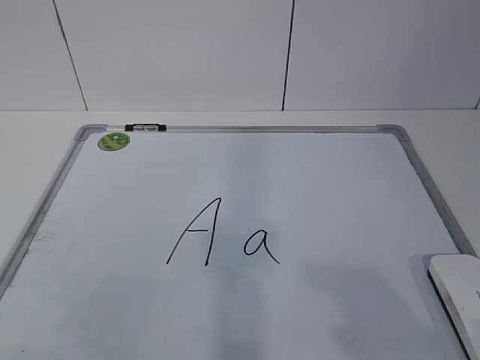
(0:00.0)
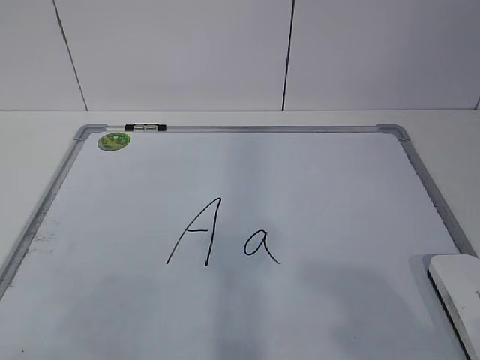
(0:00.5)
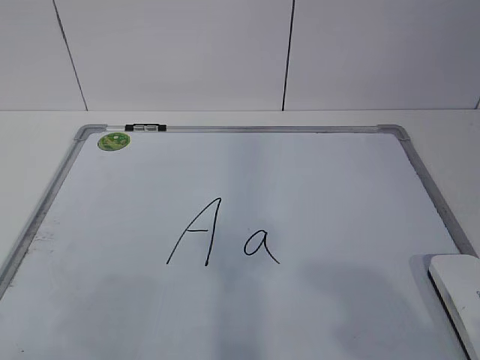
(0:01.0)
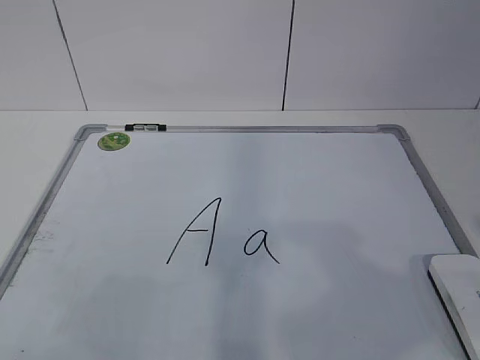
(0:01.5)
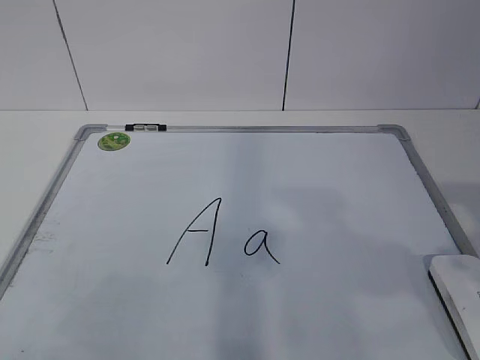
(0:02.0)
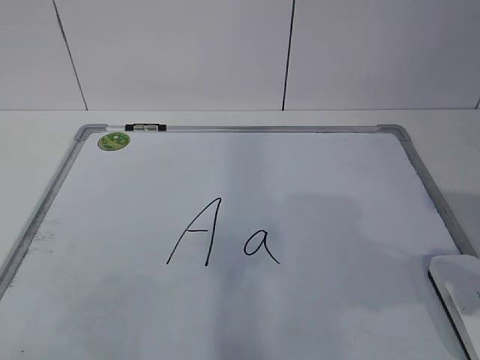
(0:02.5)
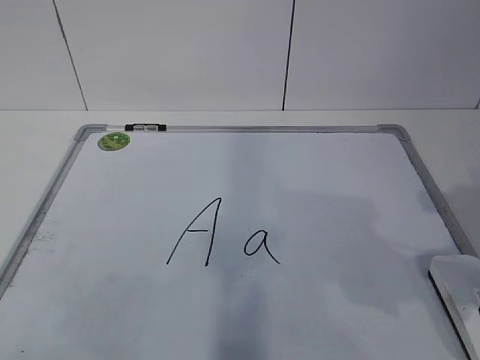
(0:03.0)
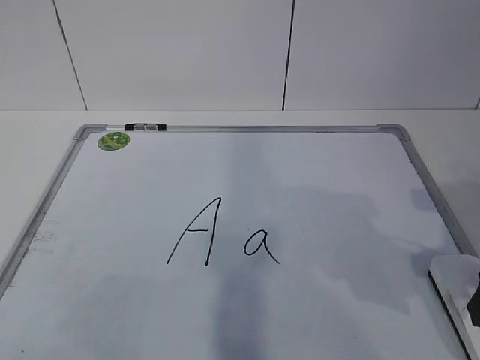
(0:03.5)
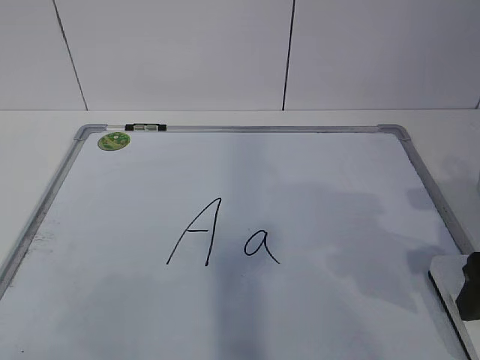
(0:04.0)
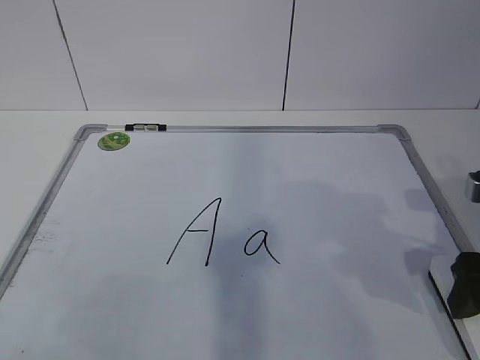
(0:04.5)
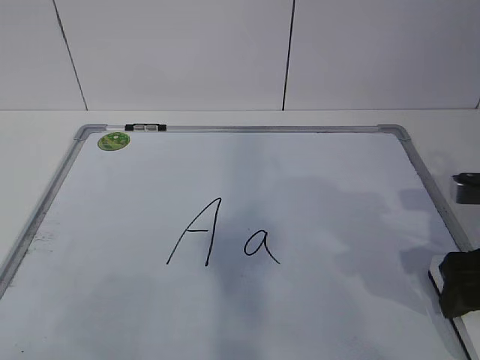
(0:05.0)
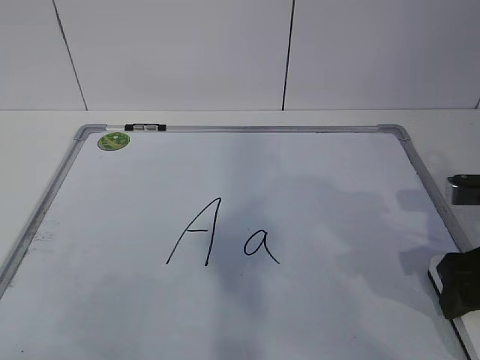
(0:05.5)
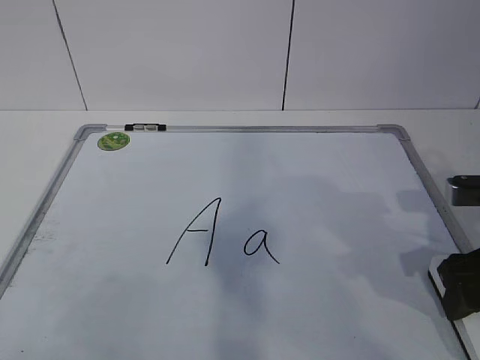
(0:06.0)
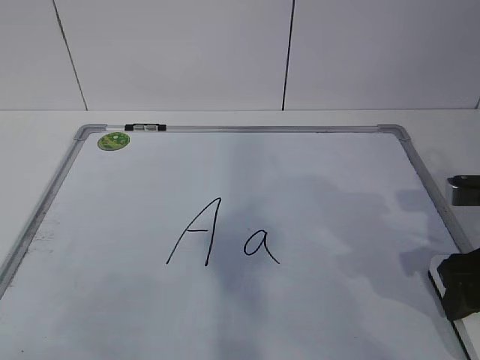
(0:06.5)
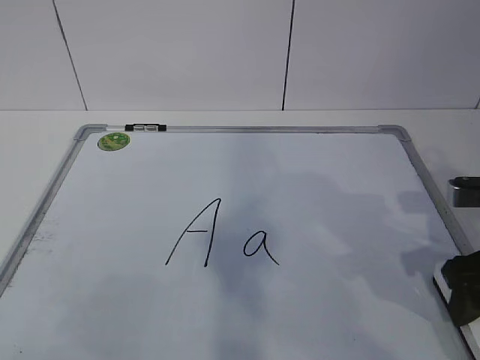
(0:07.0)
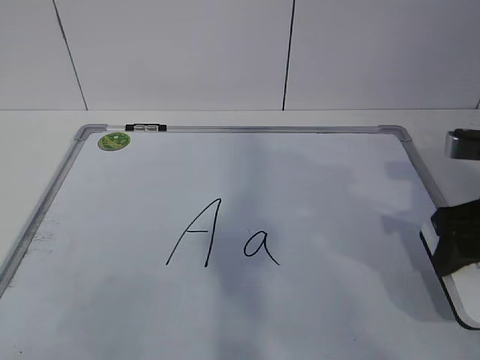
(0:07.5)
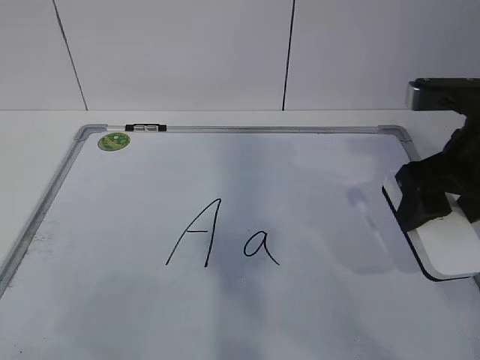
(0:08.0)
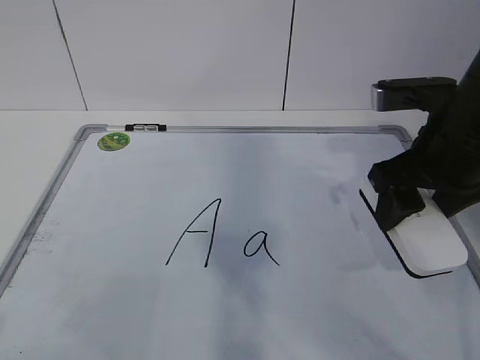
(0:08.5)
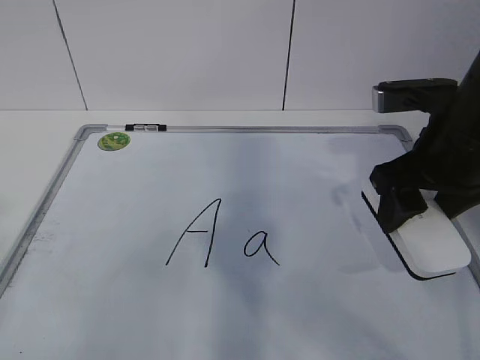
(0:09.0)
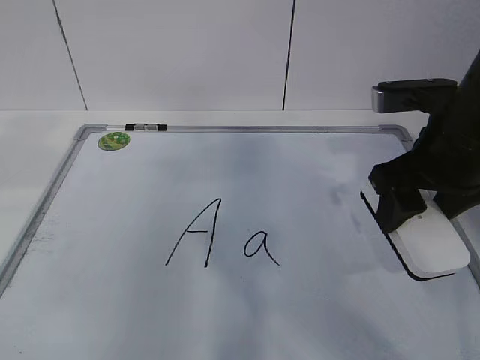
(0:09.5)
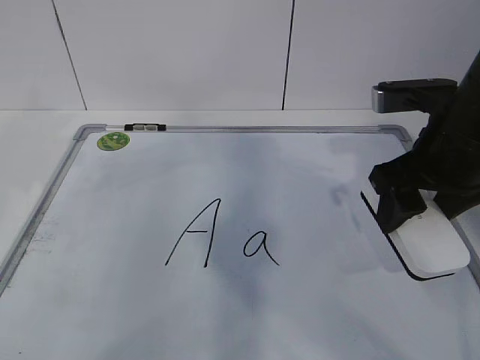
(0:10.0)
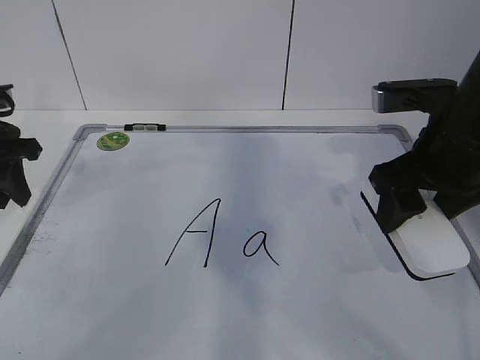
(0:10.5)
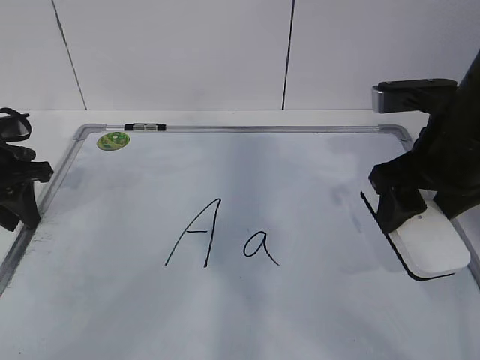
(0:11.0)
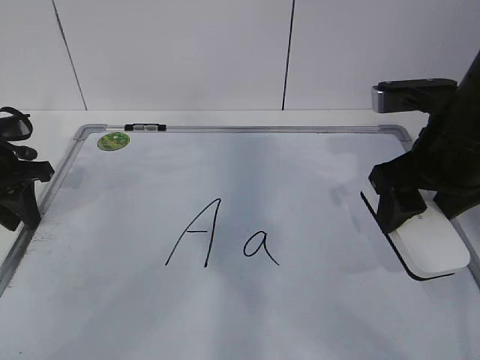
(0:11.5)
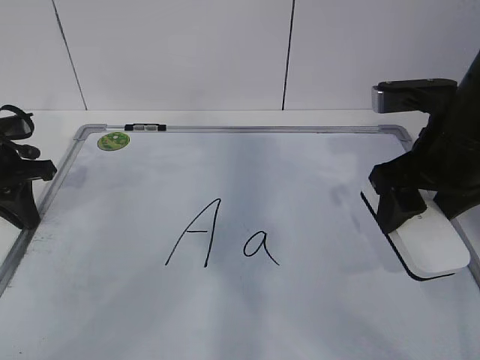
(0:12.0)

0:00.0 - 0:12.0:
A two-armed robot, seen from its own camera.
Task of the whole recording: pick up the eraser on the blackboard and erase the letter "a".
Step, 0:06.0 - 0:09.5: Hold the drawing board steady with your left hand.
0:02.0 - 0:04.0: The right gripper heads forward and downward, covering some 15 cm, and opens.
0:04.0 - 0:06.0: The right gripper closes its fingers.
0:06.0 - 0:08.0: The right gripper heads upward, covering about 10 cm.
0:10.0 - 0:12.0: The left gripper moves downward and forward, about 15 cm, and closes up.

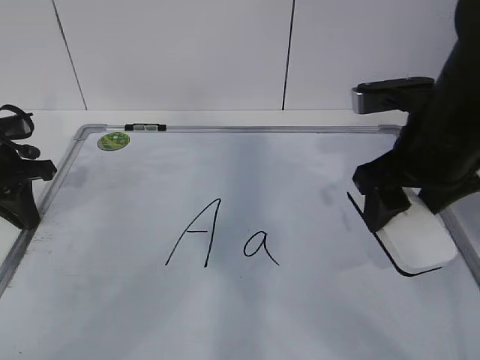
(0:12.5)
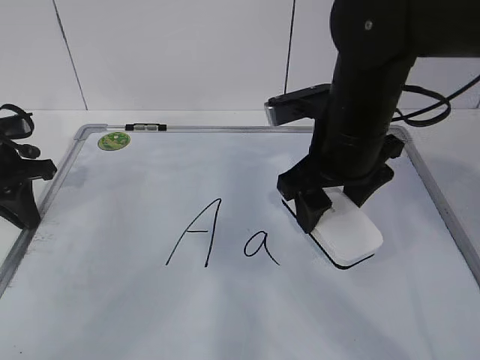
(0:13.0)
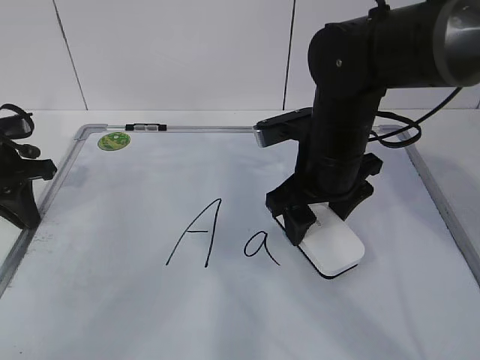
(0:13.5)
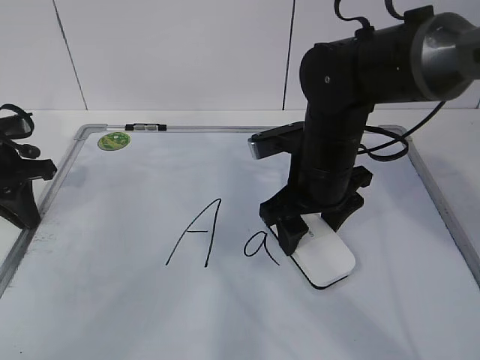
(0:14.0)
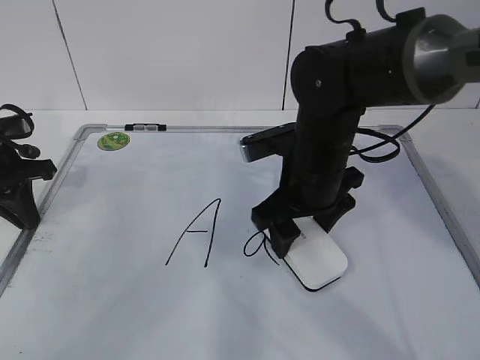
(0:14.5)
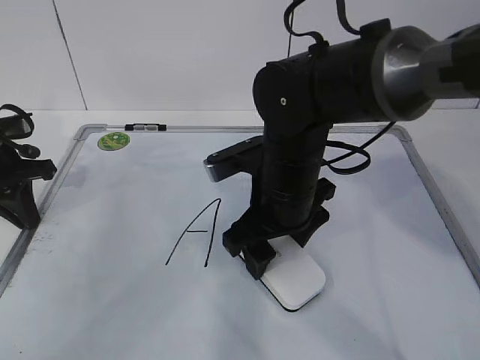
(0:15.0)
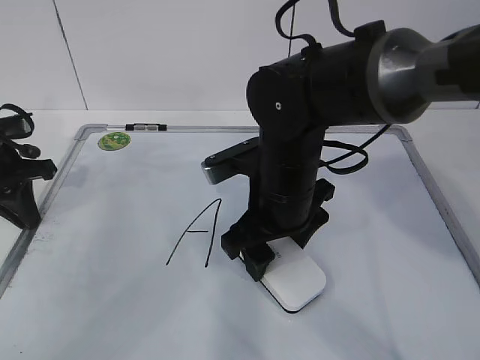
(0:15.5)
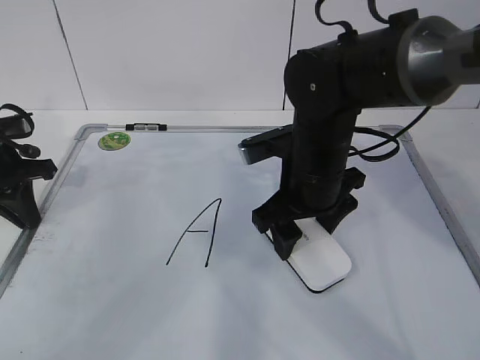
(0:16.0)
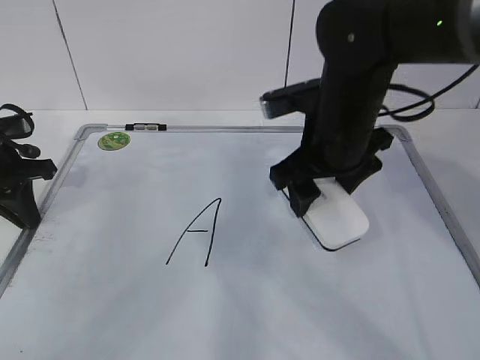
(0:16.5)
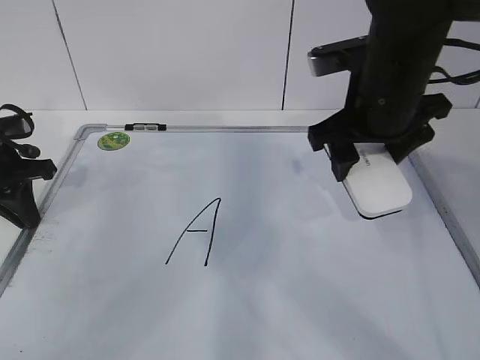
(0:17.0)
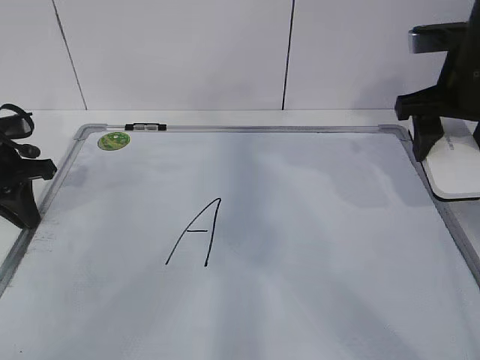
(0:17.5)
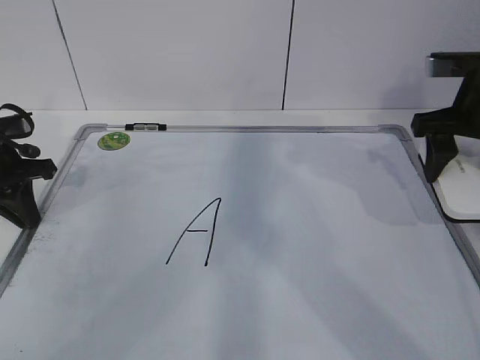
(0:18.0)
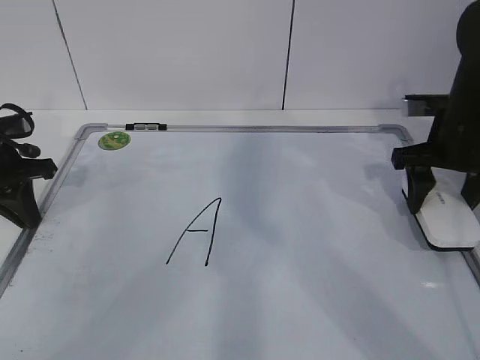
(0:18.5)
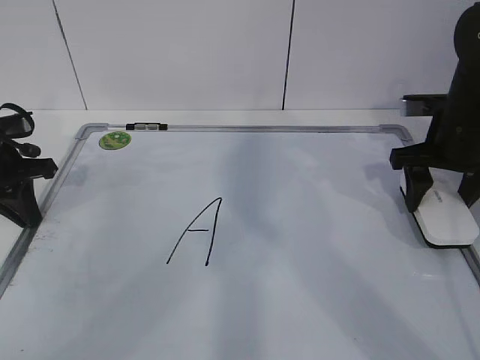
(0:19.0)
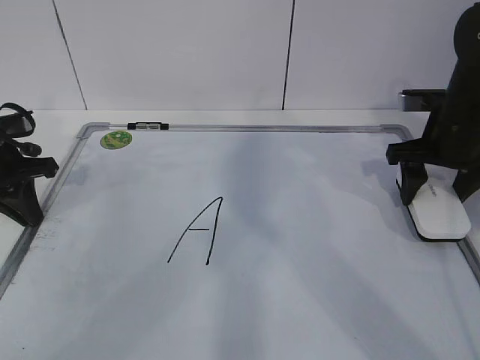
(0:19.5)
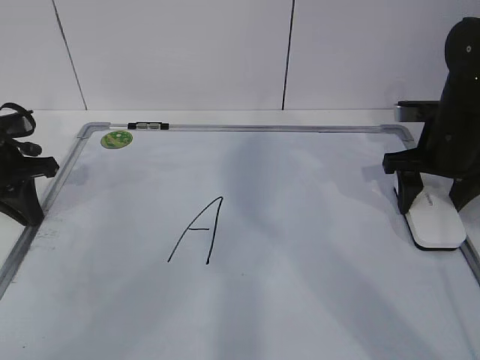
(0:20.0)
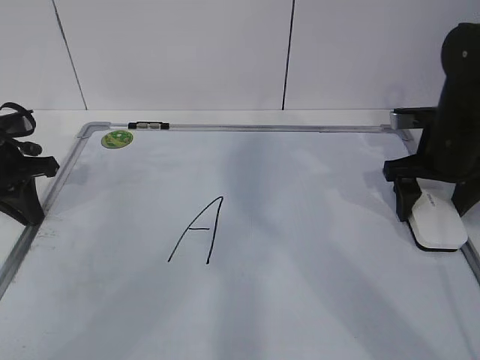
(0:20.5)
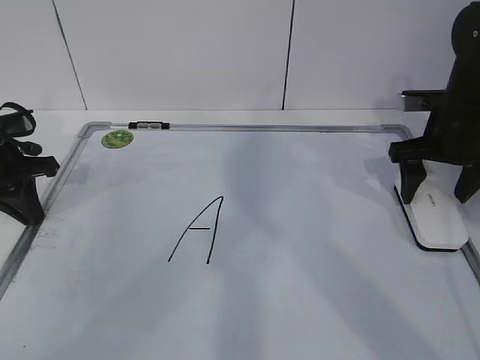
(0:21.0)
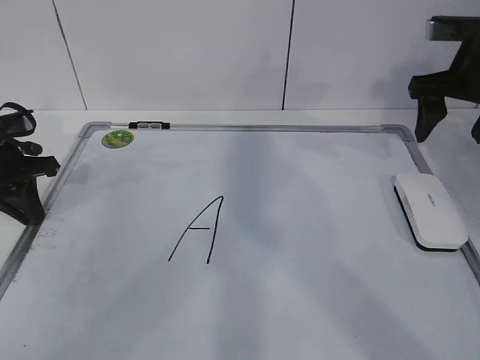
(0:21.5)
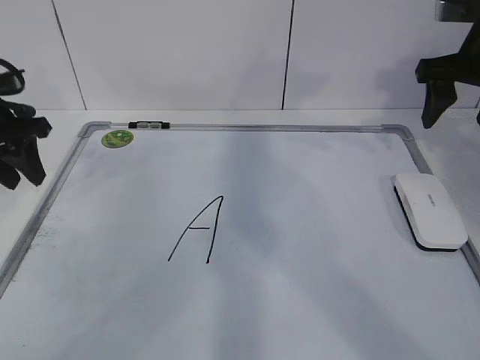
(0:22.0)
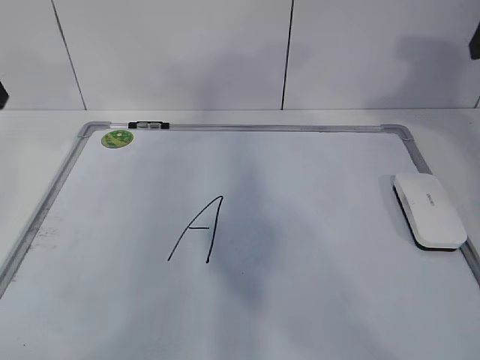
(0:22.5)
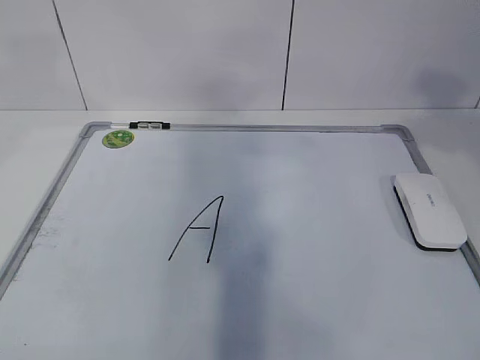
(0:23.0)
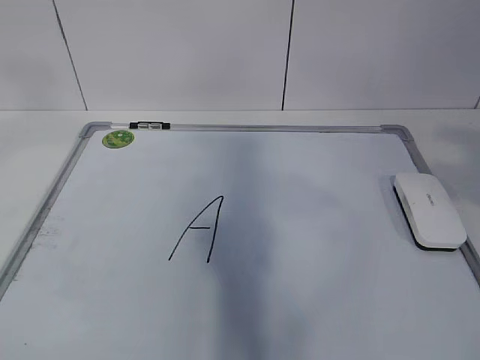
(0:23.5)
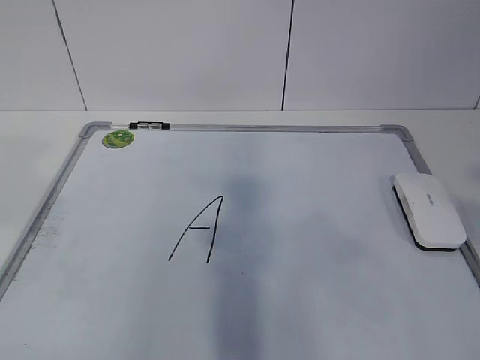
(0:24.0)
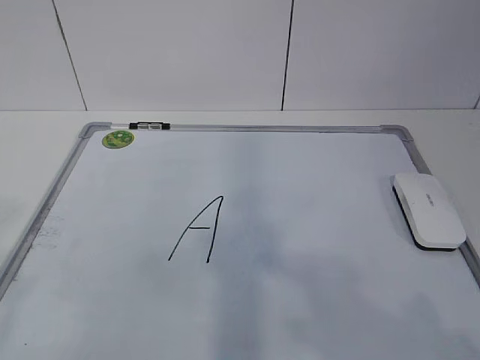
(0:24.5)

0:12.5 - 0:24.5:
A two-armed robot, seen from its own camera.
Task of the whole recording: pick up the eraser on the blackboard and erase the letter "a".
Step, 0:14.0 - 0:16.5: Put down the eraser with your right hand.
0:12.5 - 0:14.5: The right gripper shifts some 10 cm to the left and downward.
0:14.5 - 0:16.5: The right gripper is displaced upward by approximately 5 cm.
0:16.5 - 0:18.5: The right gripper heads to the right, covering roughly 15 cm.
0:18.5 - 0:20.5: The right gripper opens up.
0:20.5 - 0:22.5: The grippers both shift upward by about 20 cm. The right gripper closes. The left gripper opens its fingers.
0:22.5 - 0:24.5: The two grippers go about 30 cm backward.

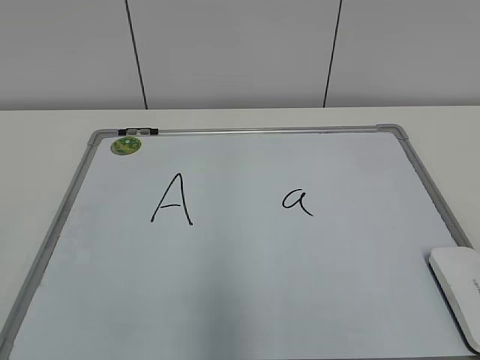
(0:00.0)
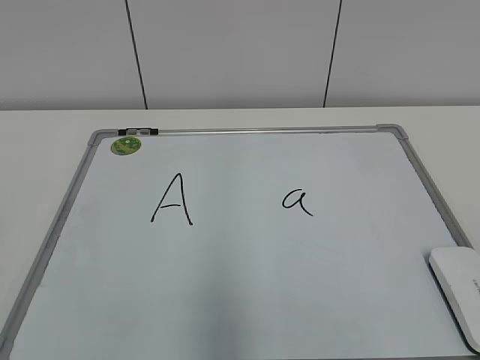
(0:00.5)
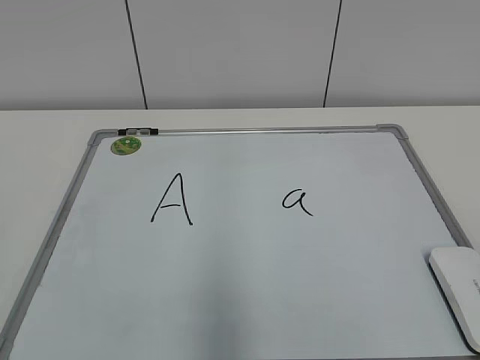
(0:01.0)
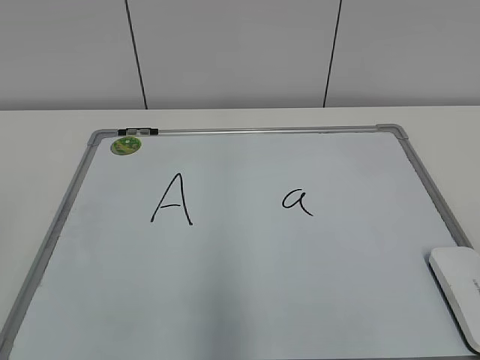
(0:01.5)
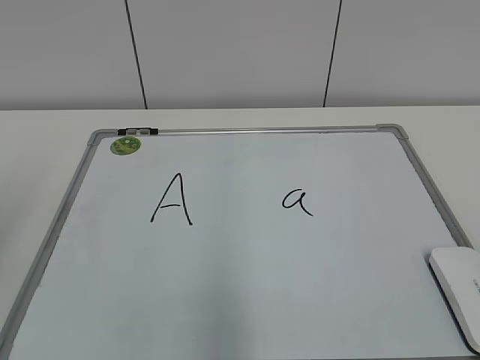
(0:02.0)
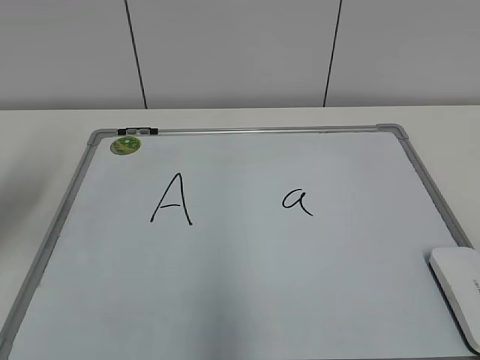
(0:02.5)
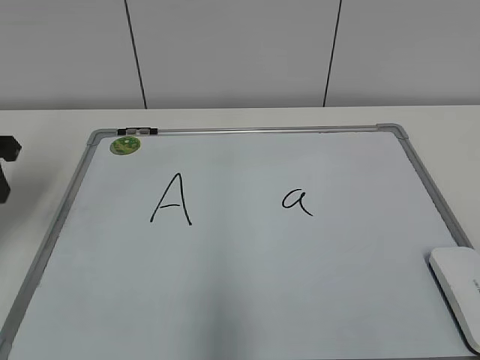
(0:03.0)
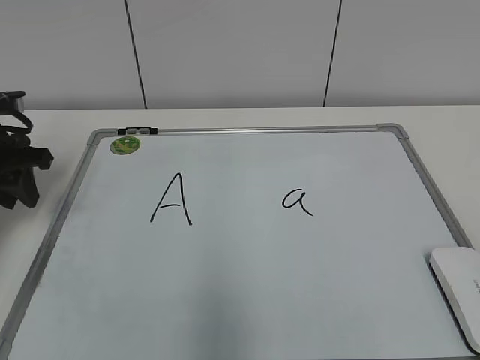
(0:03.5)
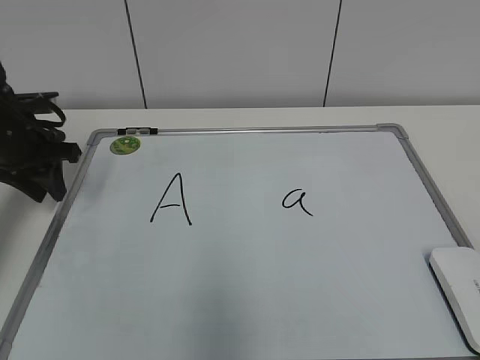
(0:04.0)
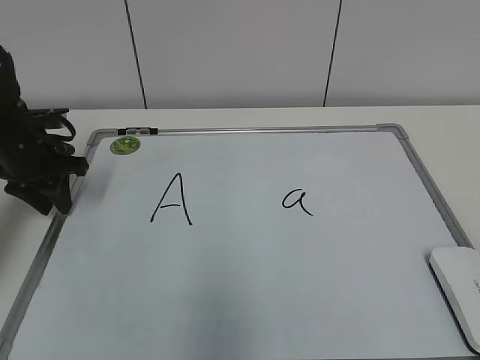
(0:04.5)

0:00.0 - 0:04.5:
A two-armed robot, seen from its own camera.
Task of the whole recording: pick up the eraser on the blackboard and erase the letter "a".
0:02.0 - 0:04.5: The left gripper shifts approximately 30 cm forward and downward.
